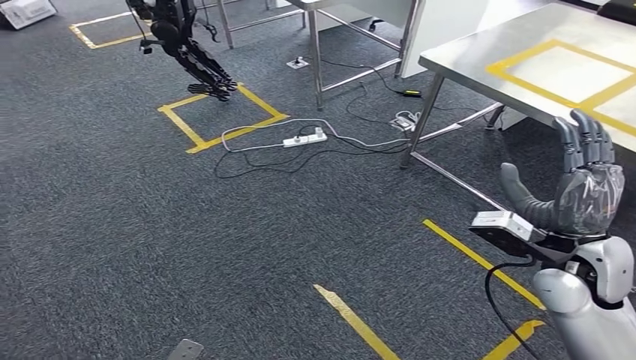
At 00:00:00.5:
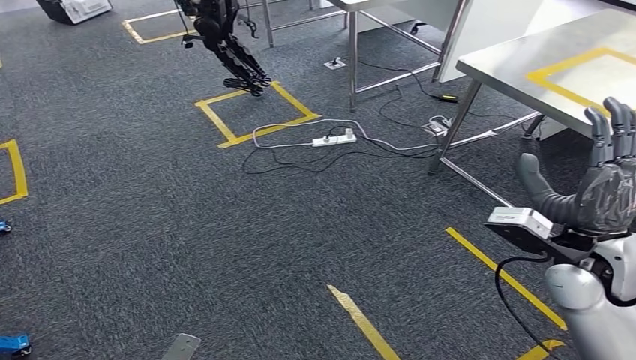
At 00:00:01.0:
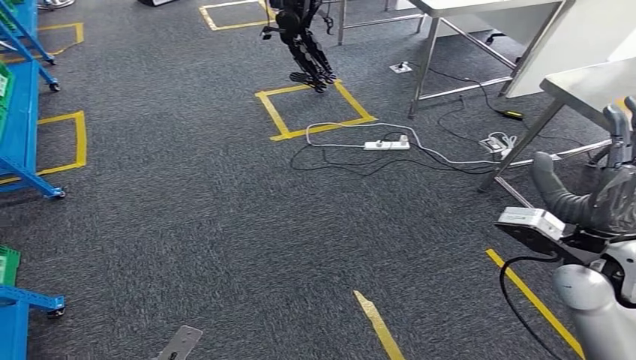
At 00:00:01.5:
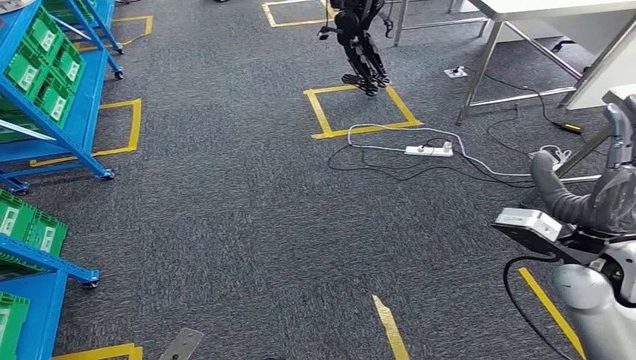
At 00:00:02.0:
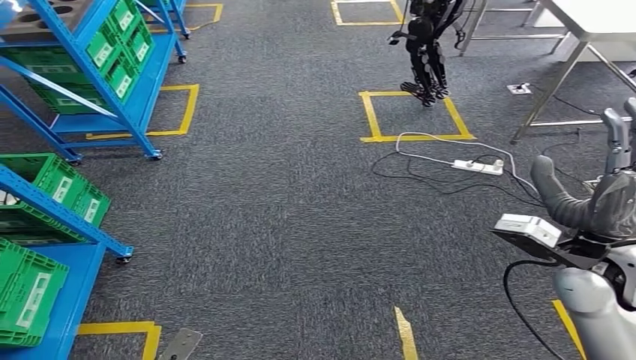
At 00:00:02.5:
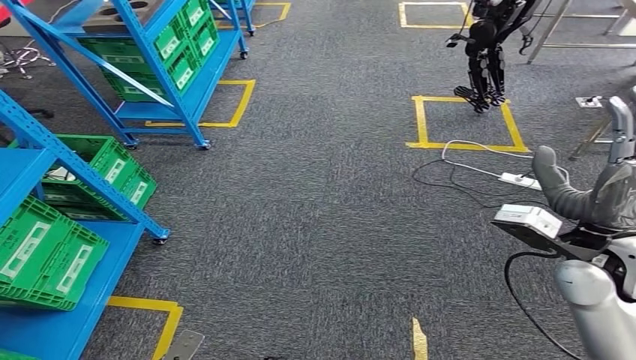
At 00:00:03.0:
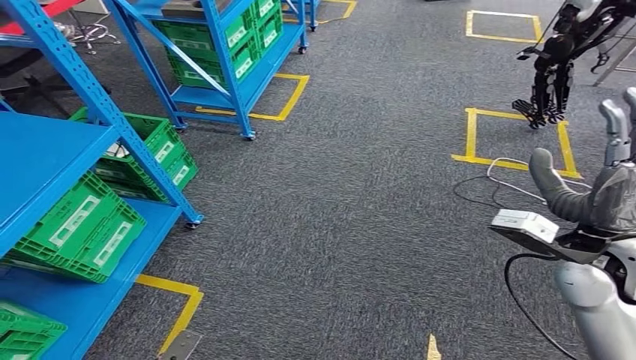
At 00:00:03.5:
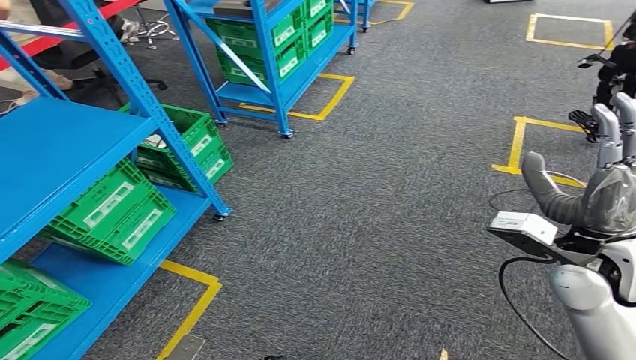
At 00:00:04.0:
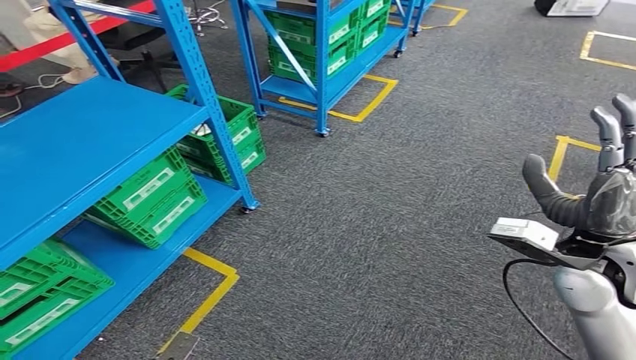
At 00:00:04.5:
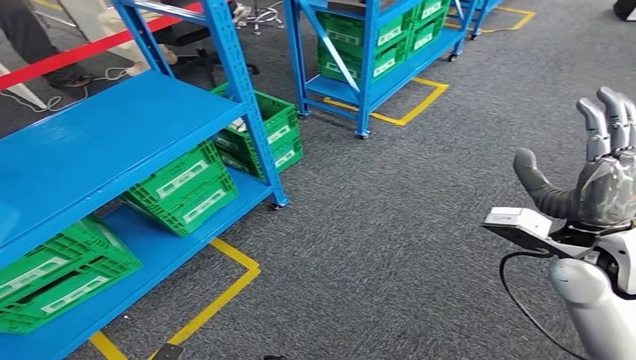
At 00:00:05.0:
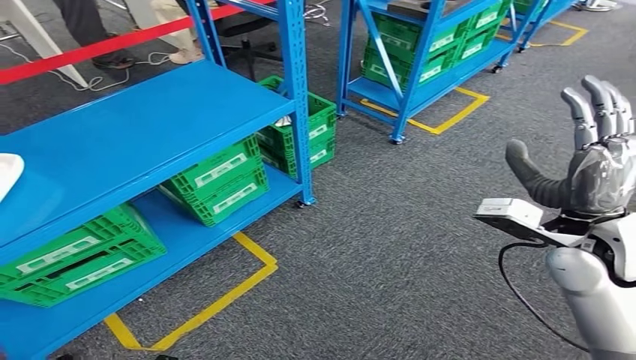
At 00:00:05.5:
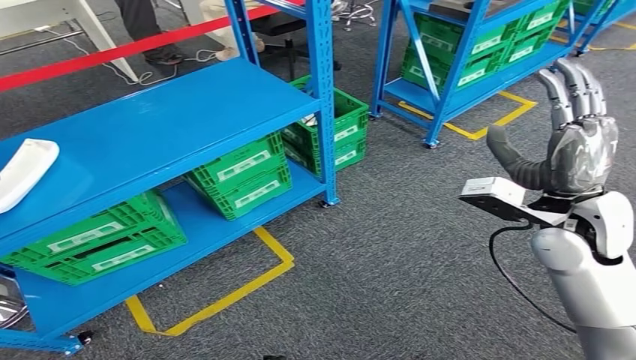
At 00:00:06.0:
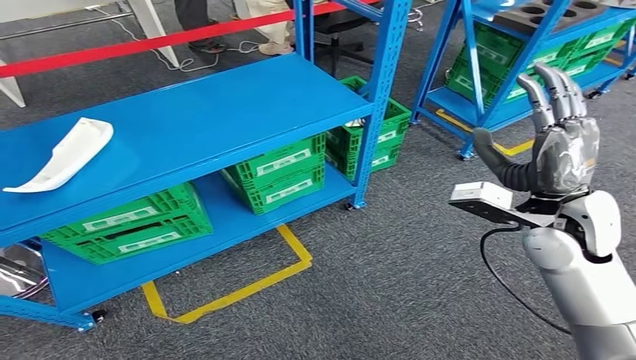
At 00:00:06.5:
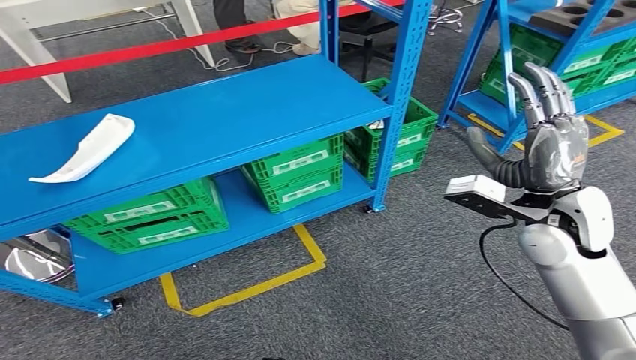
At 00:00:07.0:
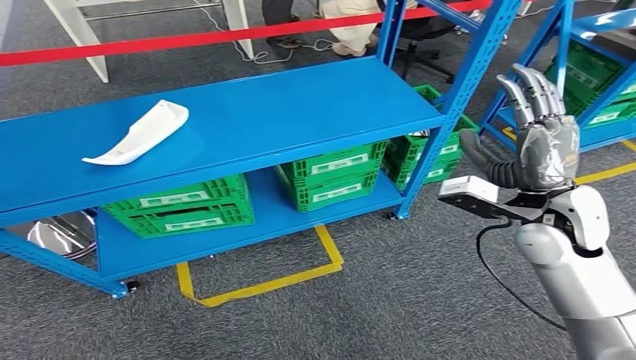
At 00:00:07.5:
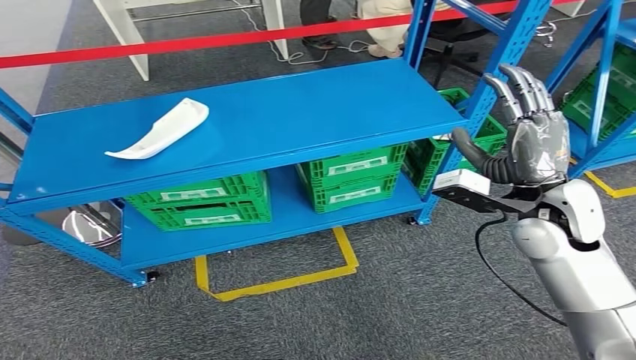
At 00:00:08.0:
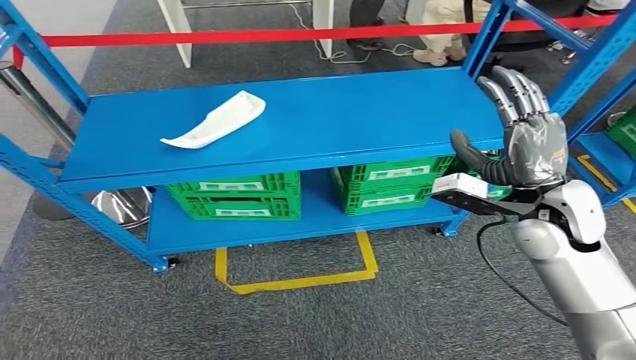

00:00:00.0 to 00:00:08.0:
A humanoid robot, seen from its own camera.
Step, 00:00:00.0 to 00:00:08.0: Move to the initial position of the workbench.
